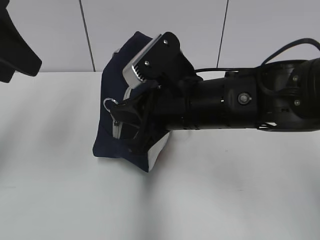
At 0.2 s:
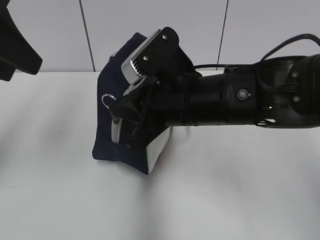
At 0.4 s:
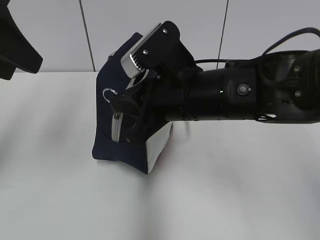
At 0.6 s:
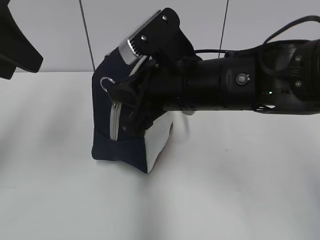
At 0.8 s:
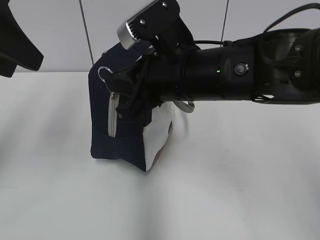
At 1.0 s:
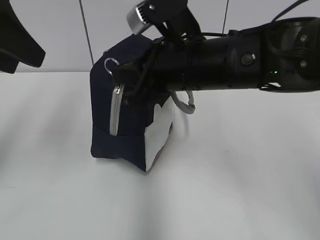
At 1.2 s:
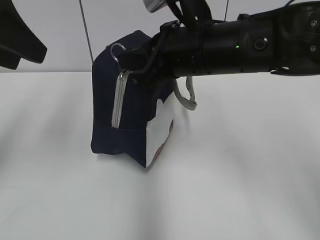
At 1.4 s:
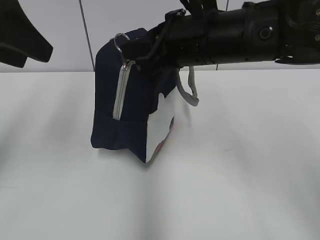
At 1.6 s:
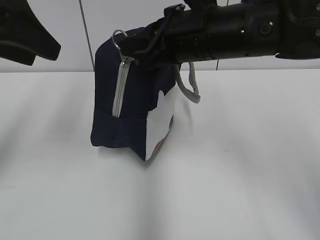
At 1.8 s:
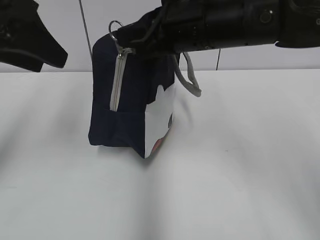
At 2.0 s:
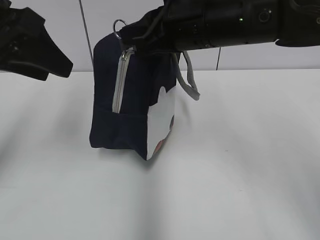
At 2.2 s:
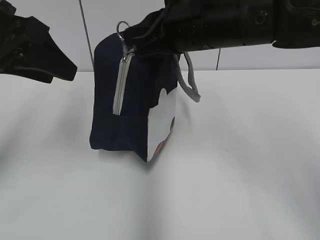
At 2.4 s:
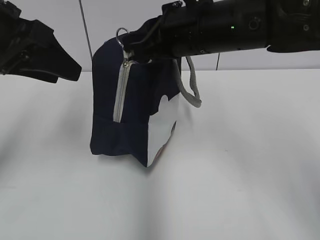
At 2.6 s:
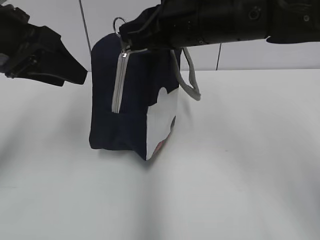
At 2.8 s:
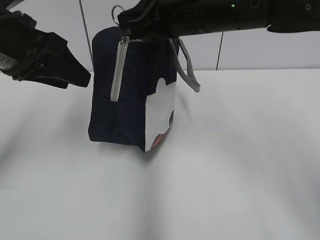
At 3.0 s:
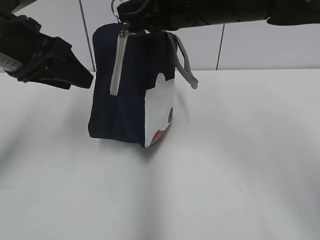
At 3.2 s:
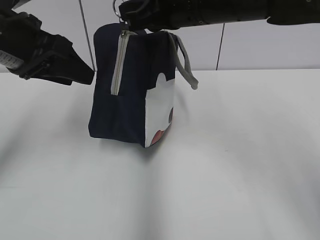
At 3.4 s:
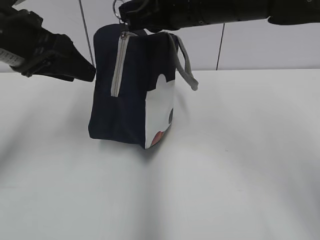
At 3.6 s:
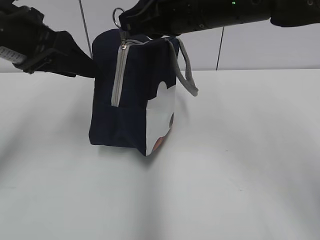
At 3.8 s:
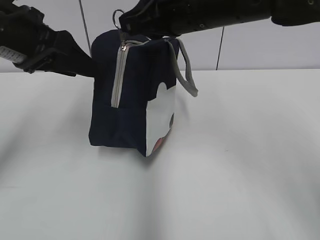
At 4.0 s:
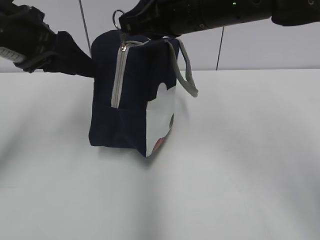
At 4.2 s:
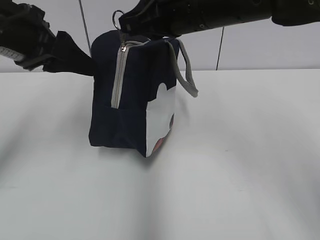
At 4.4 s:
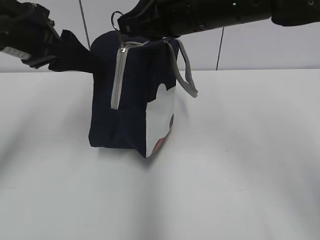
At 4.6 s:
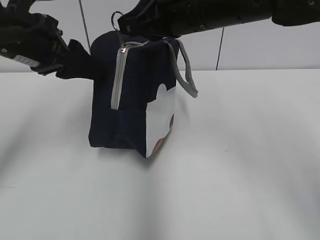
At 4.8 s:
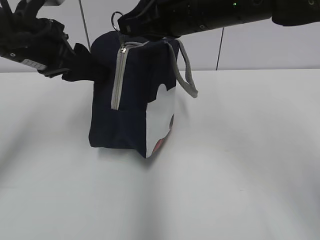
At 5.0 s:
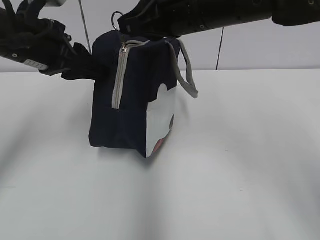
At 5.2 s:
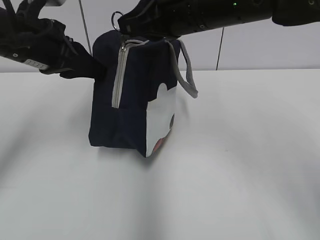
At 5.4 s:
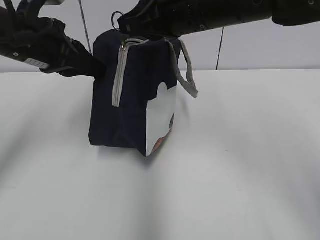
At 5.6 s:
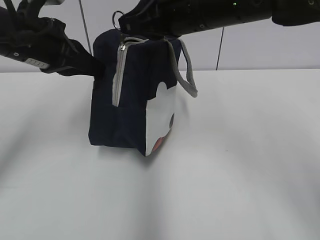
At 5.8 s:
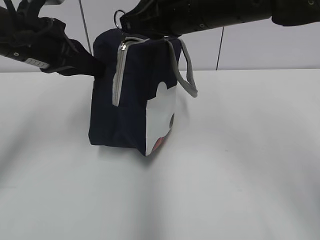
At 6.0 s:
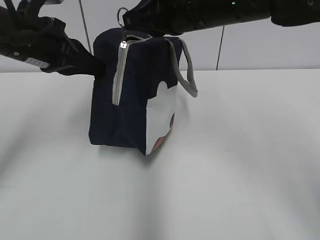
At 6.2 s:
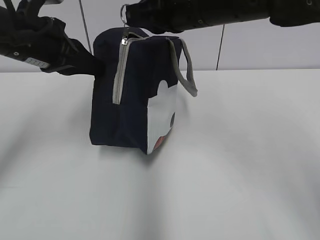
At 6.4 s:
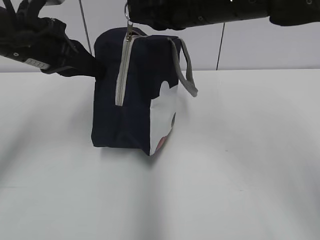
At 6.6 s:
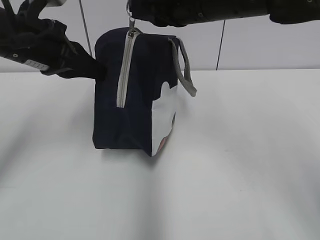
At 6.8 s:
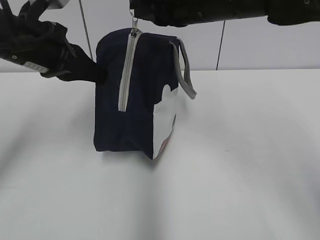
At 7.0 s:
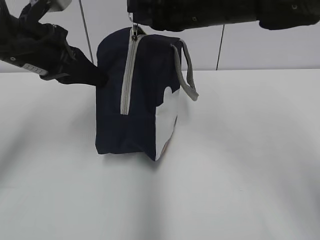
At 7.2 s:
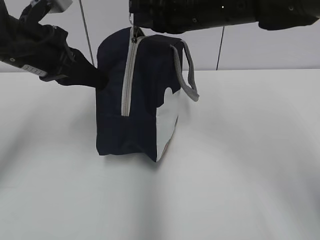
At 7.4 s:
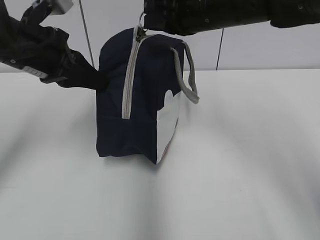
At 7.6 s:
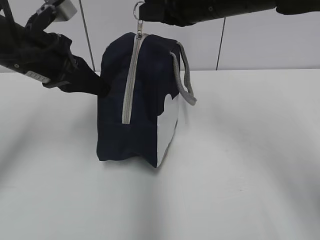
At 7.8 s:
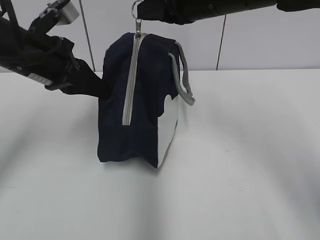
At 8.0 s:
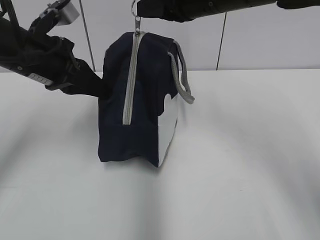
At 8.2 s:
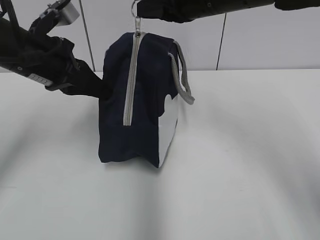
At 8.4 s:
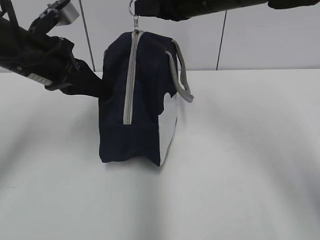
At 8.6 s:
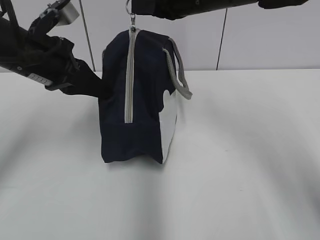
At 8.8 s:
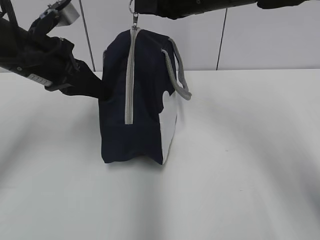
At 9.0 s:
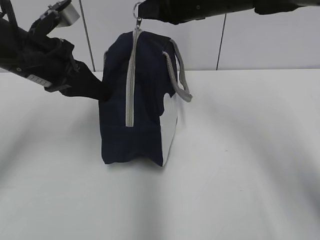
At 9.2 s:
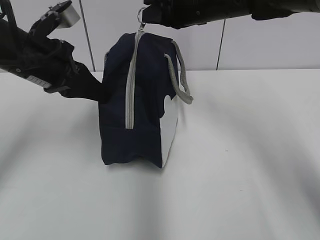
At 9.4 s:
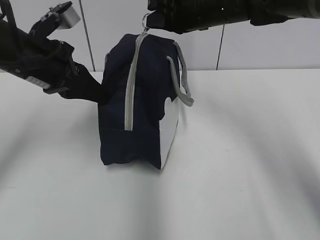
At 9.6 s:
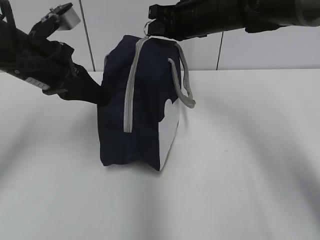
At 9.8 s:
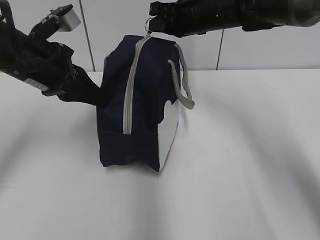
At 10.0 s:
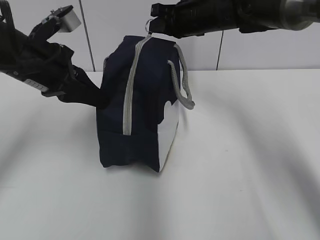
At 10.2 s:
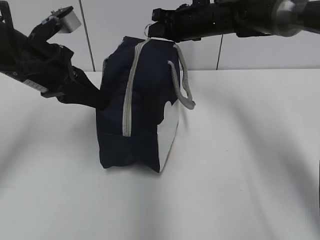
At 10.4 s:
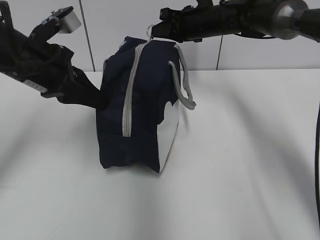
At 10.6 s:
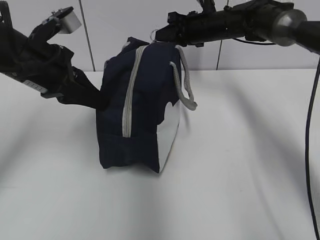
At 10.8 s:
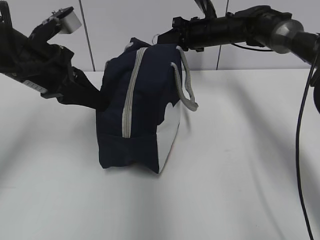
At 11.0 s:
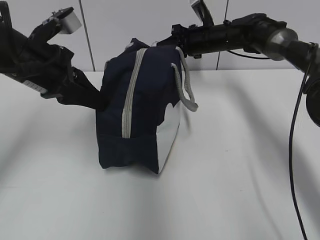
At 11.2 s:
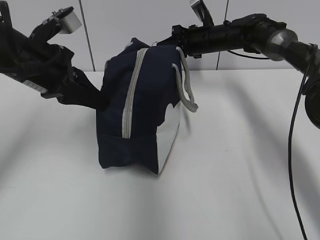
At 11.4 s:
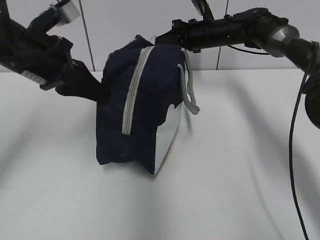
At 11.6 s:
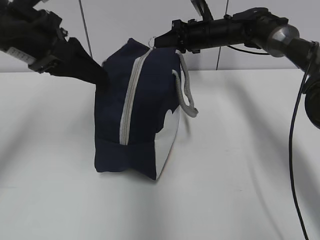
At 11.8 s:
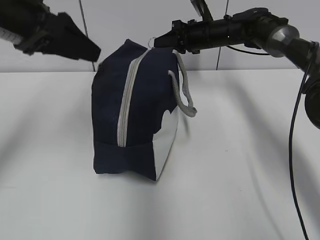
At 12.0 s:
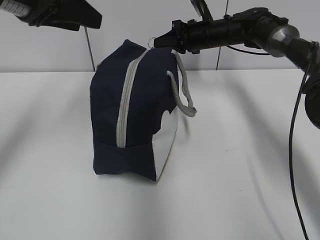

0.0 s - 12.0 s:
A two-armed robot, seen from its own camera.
0.0 s - 1.6 s: The right gripper moves upward, some 5 cm.
1.6 s - 3.0 s: The left gripper goes some 5 cm downward.
3.0 s - 4.4 s: There are only small adjustments of the grippers.
4.4 s - 6.0 s: The left gripper closes up.
6.0 s - 7.6 s: There are only small adjustments of the grippers.
7.6 s - 9.0 s: The grippers stay close to where they were, moving slightly.
9.0 s - 10.4 s: The right gripper goes some 15 cm forward and downward.
10.4 s - 12.0 s: The right gripper changes place by about 5 cm. The left gripper shifts approximately 10 cm upward, and opens its fingers.

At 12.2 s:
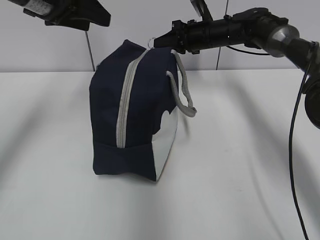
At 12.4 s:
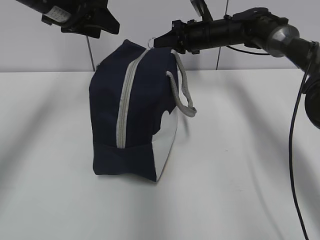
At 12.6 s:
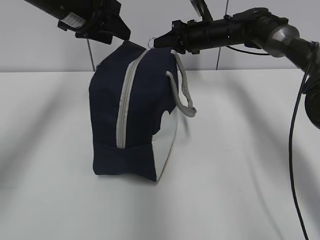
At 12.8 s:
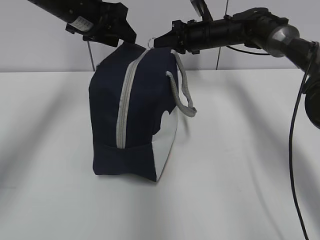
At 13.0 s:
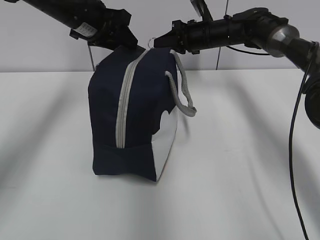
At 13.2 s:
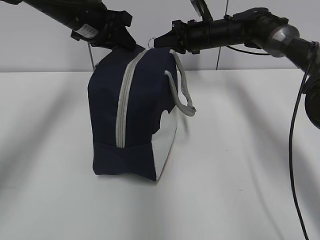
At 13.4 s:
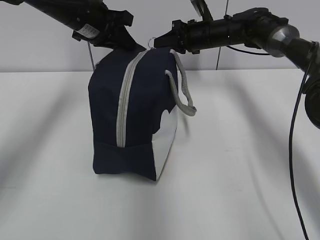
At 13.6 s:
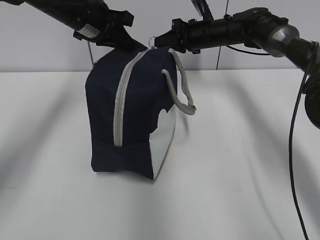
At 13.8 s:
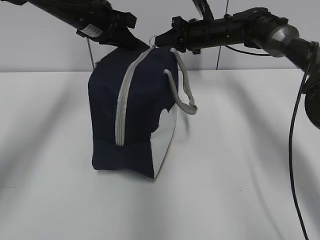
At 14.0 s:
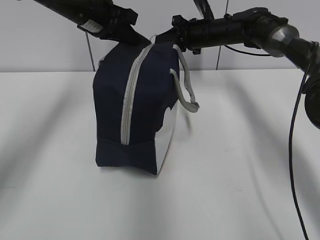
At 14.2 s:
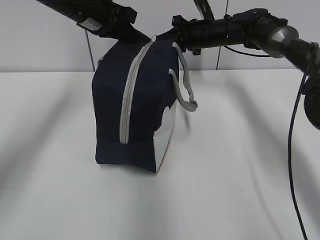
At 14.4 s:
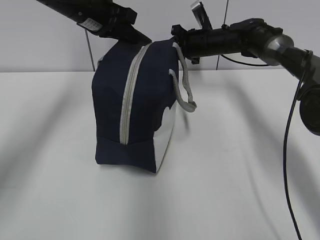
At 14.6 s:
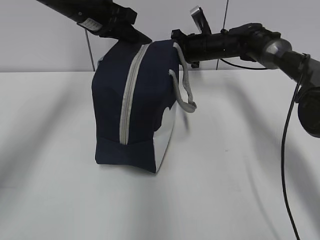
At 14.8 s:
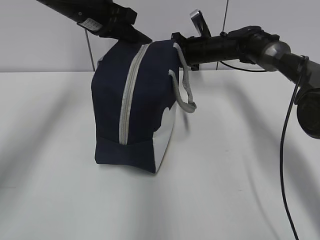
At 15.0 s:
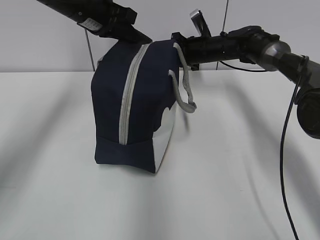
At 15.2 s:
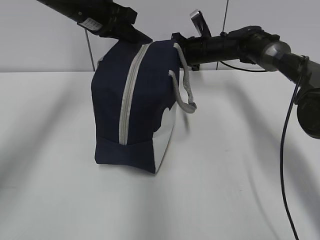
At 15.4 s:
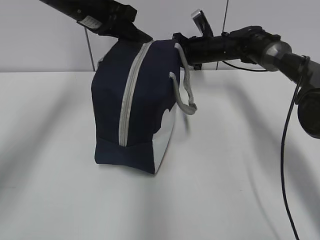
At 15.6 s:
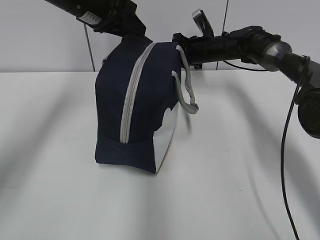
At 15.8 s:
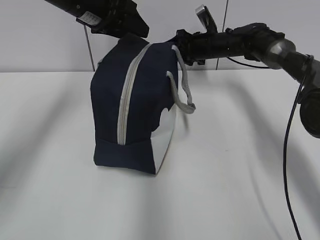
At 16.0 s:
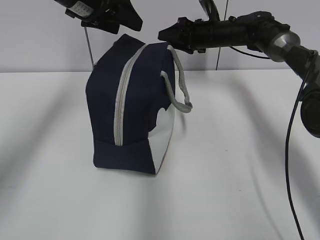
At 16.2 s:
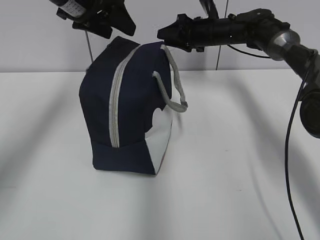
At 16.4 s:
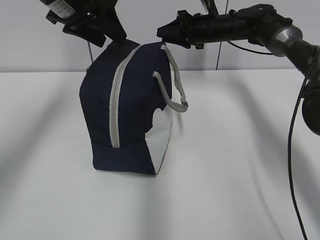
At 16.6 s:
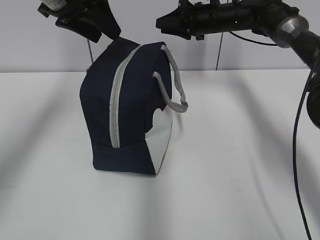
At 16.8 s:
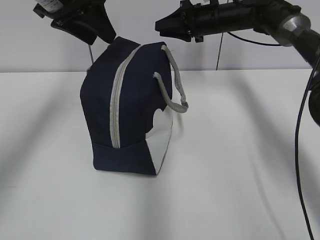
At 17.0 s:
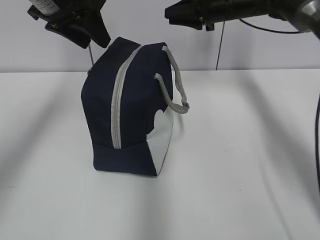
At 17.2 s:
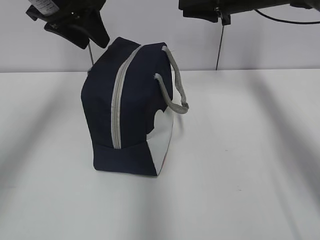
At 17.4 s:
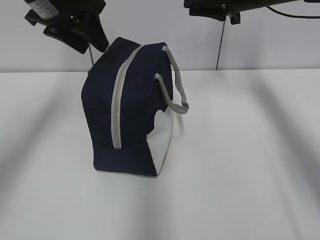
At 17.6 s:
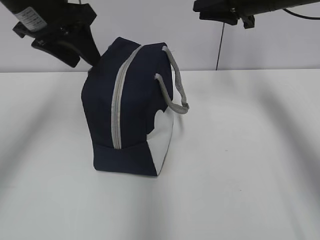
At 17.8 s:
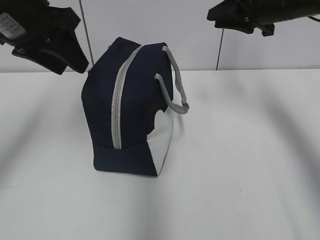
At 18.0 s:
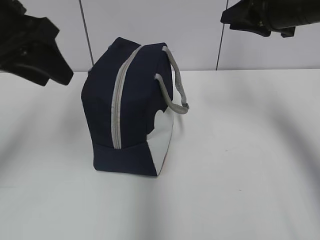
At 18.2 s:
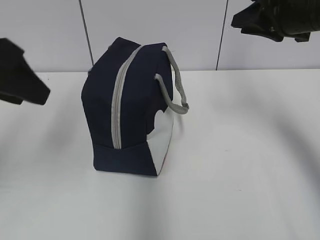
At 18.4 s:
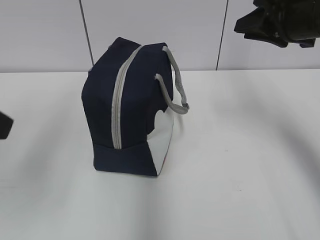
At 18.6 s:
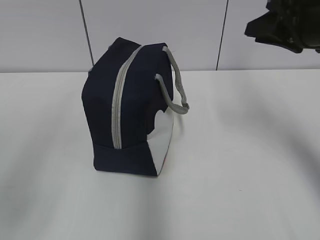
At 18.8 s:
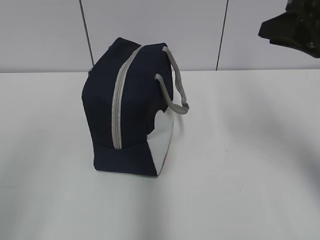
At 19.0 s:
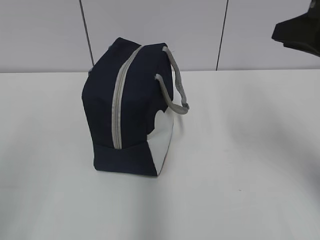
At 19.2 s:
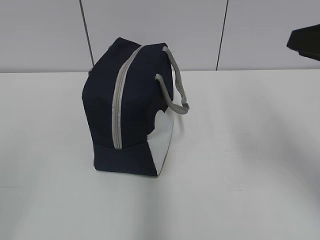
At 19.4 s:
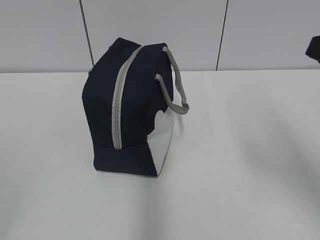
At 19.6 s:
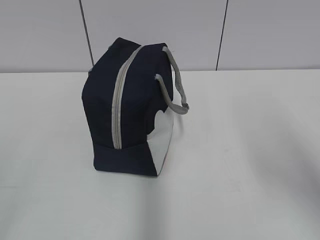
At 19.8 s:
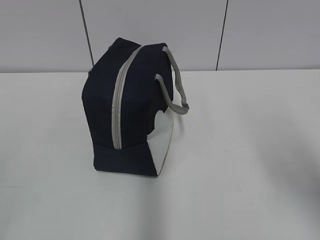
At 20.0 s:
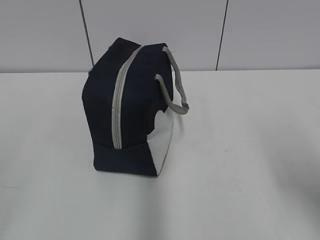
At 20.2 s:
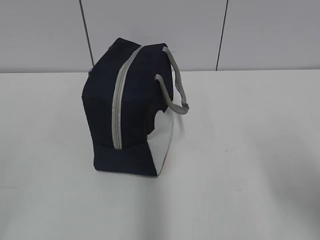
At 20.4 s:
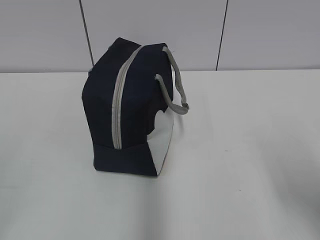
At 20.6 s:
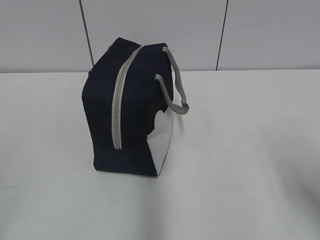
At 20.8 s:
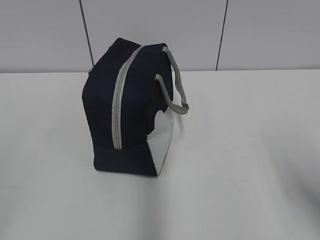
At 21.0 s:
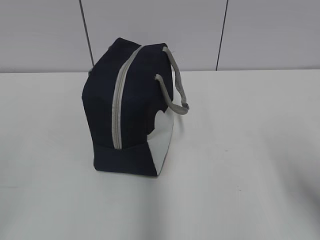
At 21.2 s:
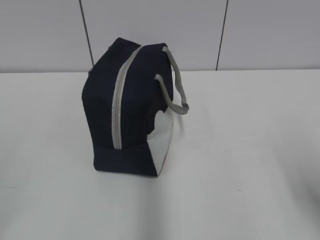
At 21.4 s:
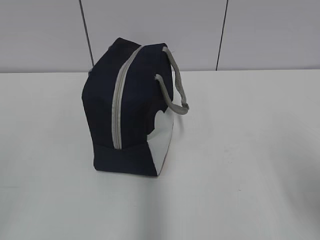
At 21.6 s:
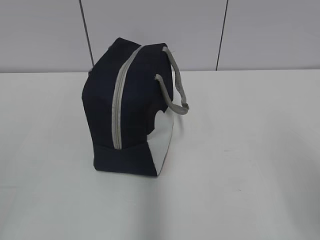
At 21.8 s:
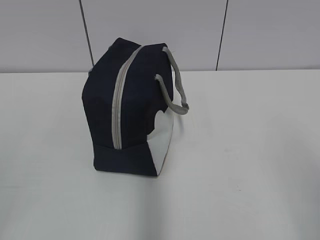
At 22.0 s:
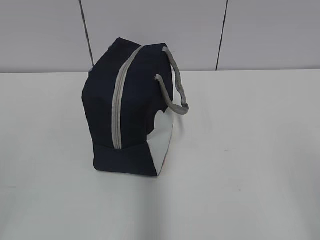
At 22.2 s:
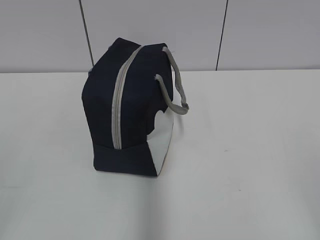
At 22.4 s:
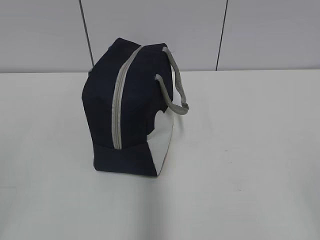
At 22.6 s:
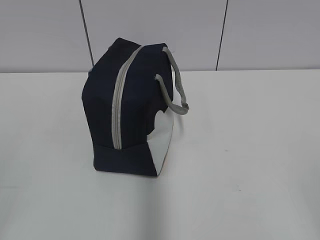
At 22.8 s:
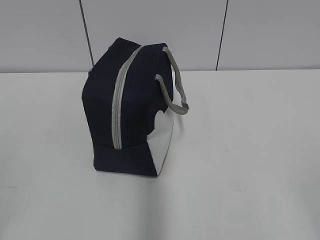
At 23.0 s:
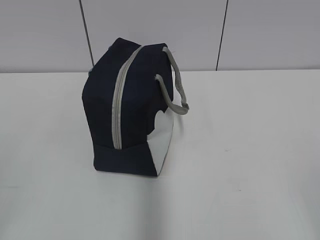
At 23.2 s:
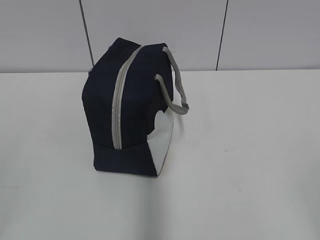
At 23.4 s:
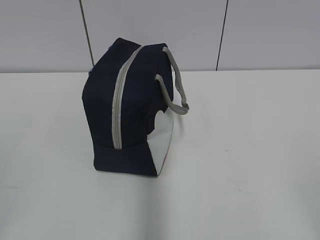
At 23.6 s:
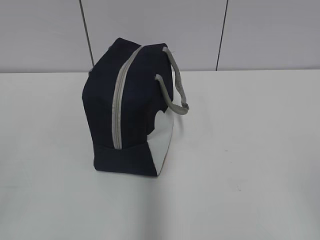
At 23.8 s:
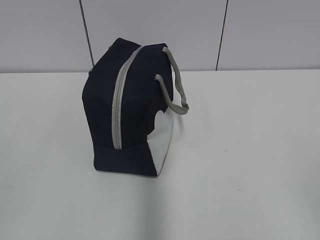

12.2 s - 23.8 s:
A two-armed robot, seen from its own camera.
Step, 12.2 s - 15.6 s: Grab the lunch bag with your left hand.
12.2 s - 13.6 s: The left gripper shifts some 10 cm forward and downward, and closes up.
13.6 s - 15.0 s: The grippers move only a little.
15.0 s - 16.6 s: The right gripper is displaced upward by approximately 5 cm, and opens. The left gripper is displaced backward and upward by about 10 cm, and opens its fingers.
16.6 s - 18.0 s: The right gripper shifts some 20 cm backward and upward. The left gripper shifts approximately 10 cm backward.
18.0 s - 19.4 s: The two grippers go approximately 25 cm backward.
19.4 s - 21.0 s: The right gripper travels downward and backward by approximately 10 cm.
21.0 s - 22.4 s: The right gripper shifts about 10 cm backward, and opens up.
